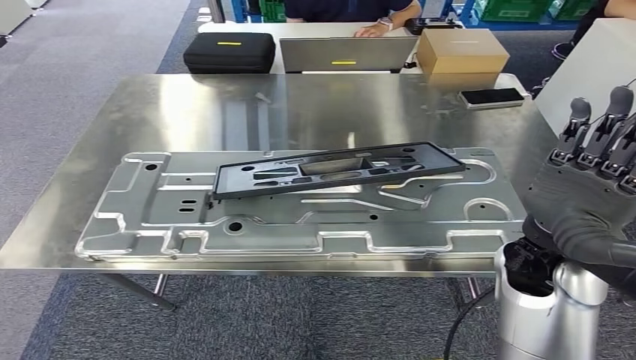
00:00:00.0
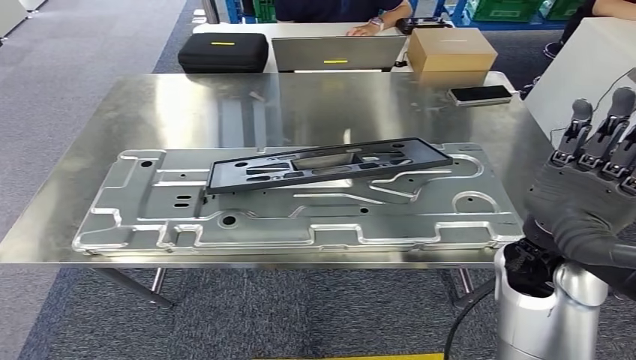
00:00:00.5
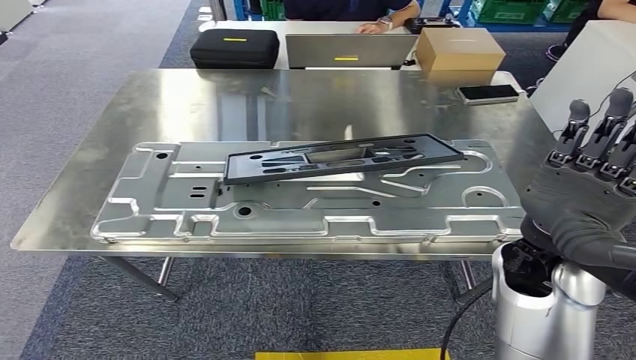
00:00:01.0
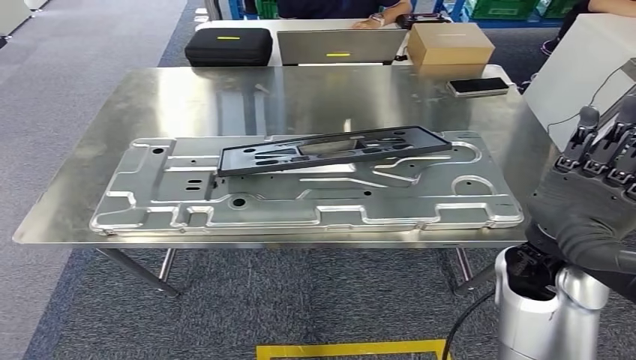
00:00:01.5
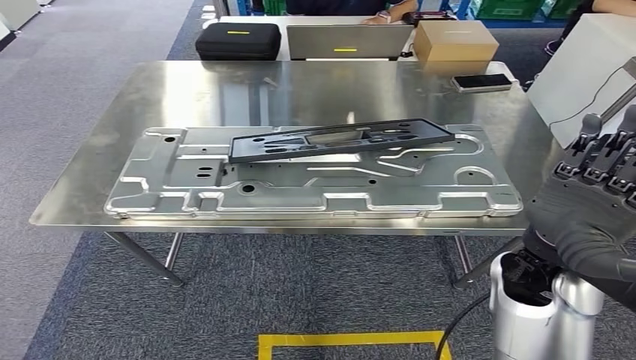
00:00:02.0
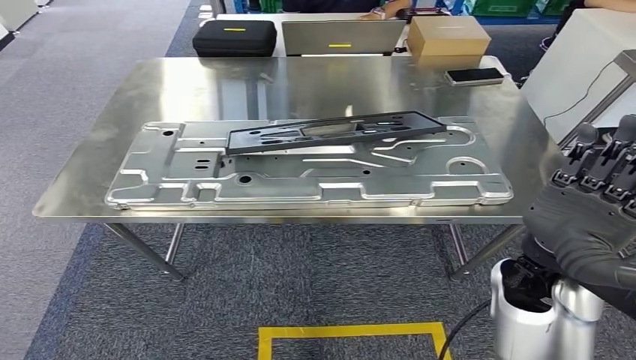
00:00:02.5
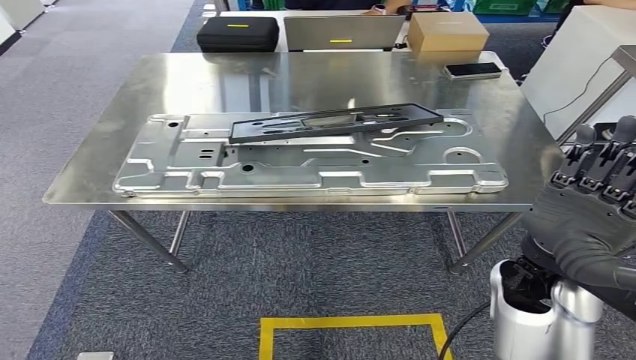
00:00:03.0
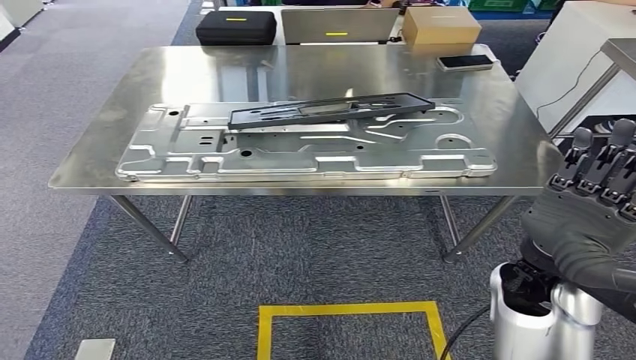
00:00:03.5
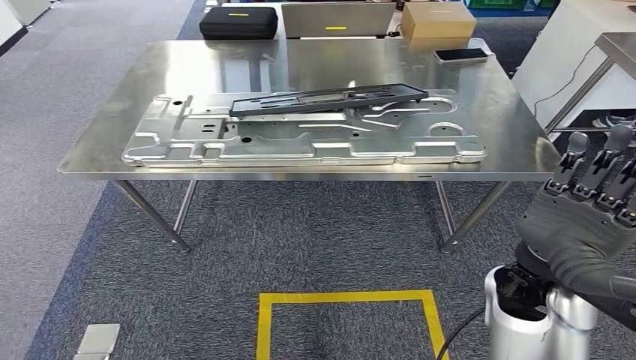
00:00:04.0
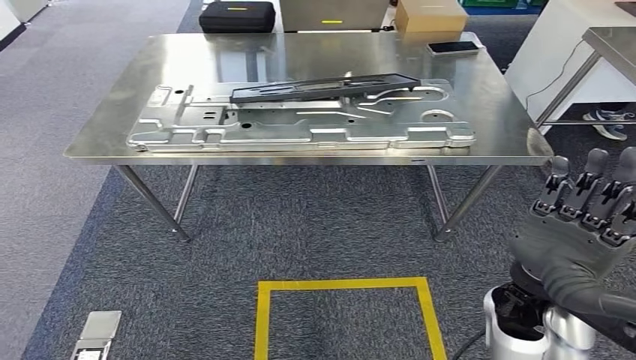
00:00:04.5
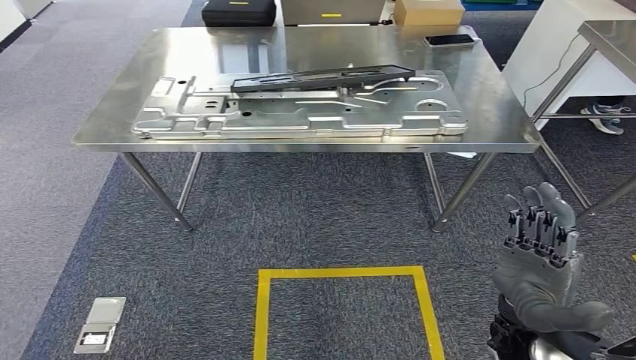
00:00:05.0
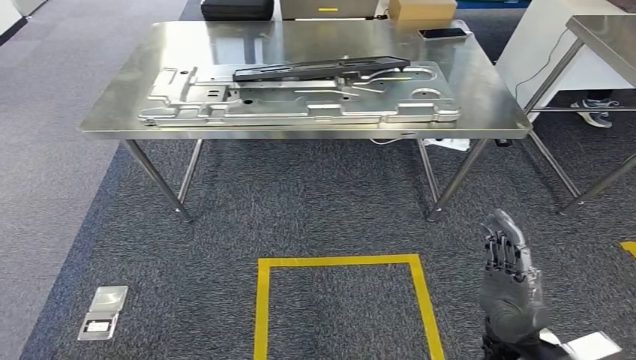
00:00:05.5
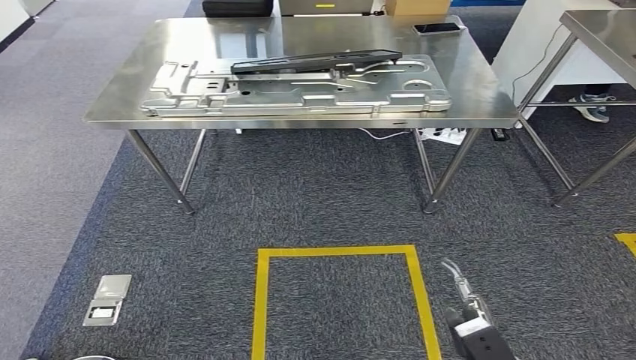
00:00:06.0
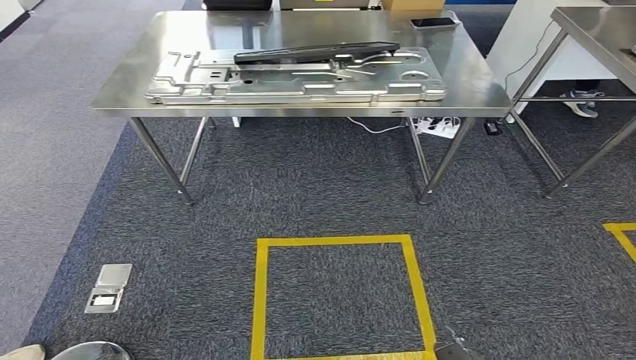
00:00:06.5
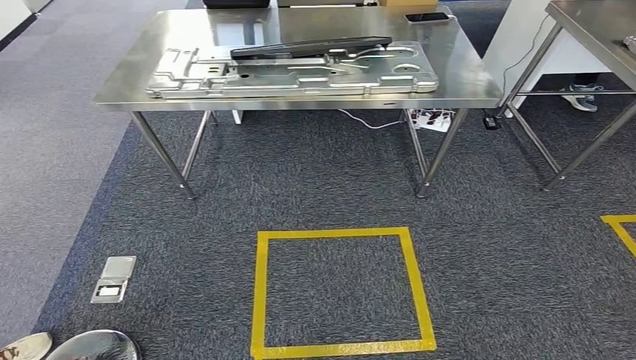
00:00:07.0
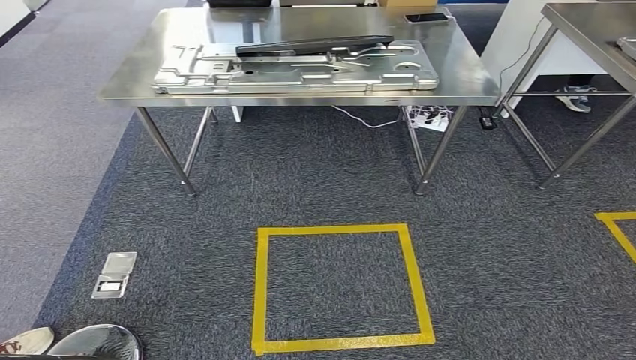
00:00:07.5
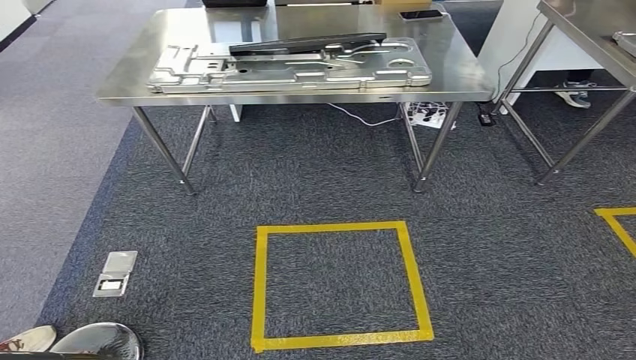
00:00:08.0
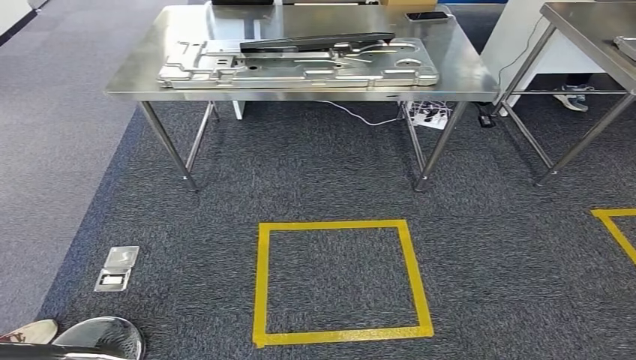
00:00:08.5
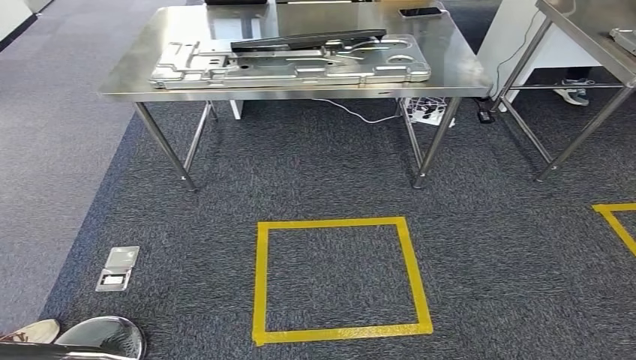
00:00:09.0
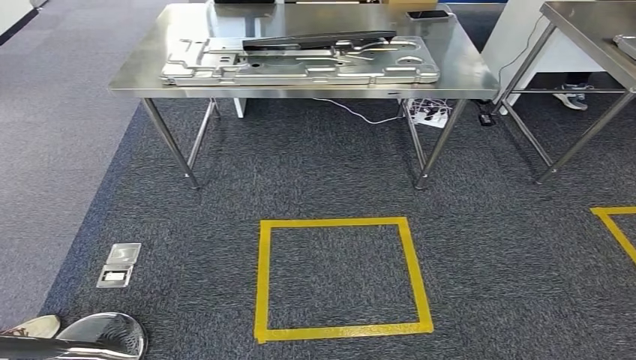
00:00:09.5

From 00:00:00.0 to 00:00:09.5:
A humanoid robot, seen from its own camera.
From 00:00:07.5 to 00:00:09.5: The right hand shifts some 5 cm backward.
